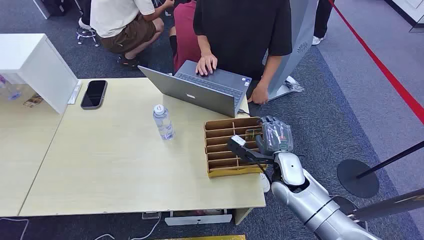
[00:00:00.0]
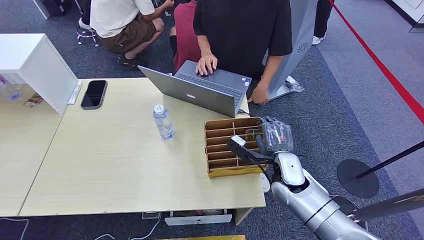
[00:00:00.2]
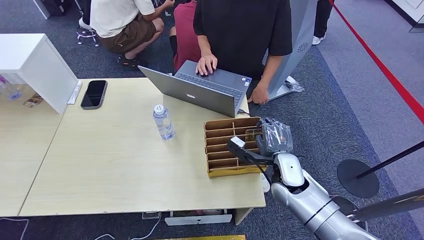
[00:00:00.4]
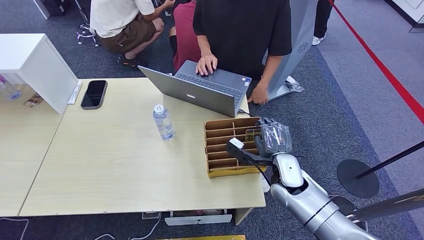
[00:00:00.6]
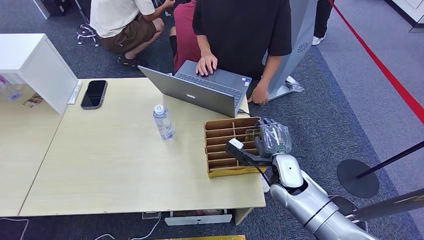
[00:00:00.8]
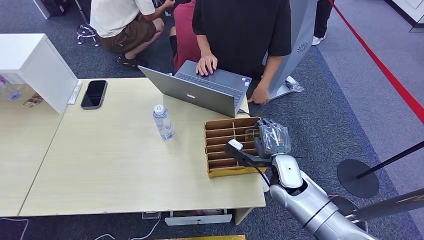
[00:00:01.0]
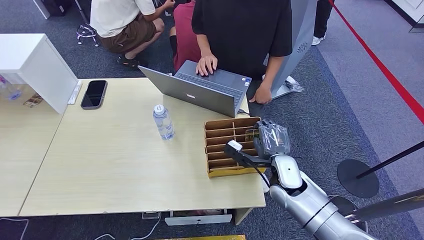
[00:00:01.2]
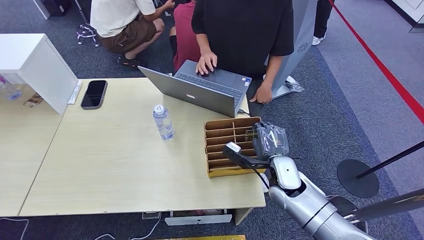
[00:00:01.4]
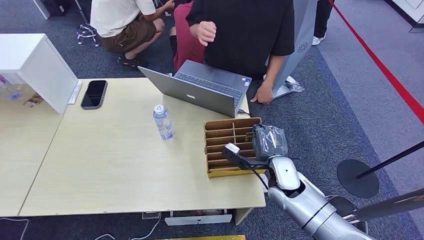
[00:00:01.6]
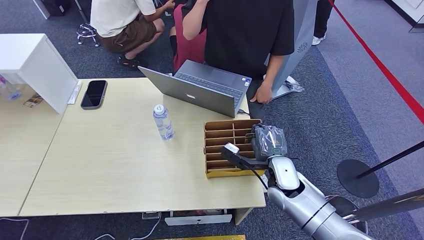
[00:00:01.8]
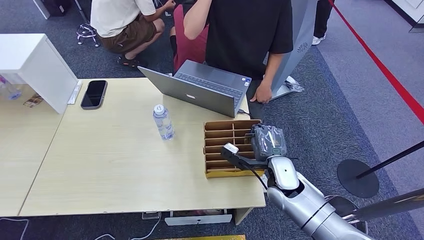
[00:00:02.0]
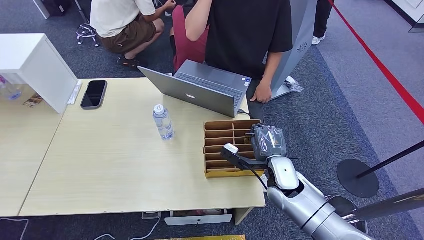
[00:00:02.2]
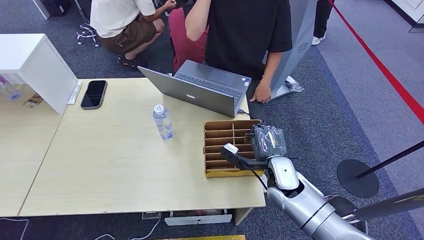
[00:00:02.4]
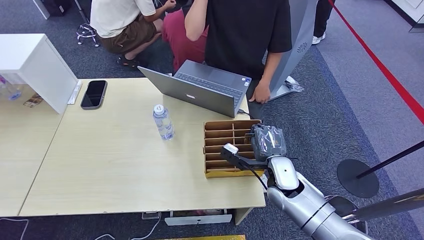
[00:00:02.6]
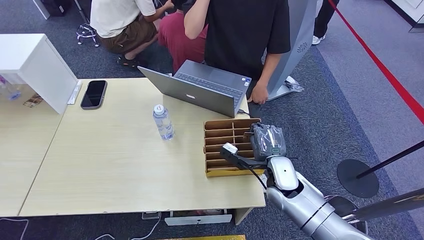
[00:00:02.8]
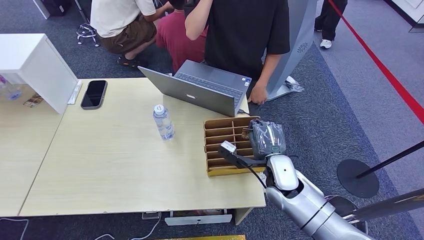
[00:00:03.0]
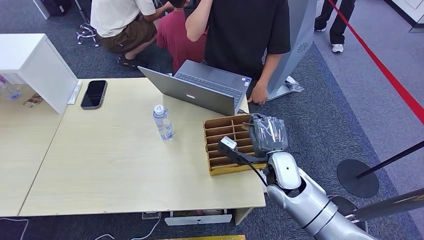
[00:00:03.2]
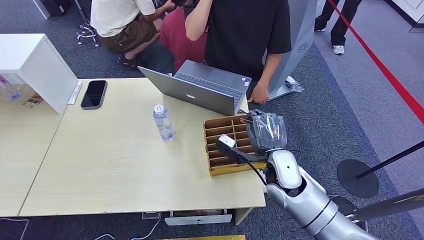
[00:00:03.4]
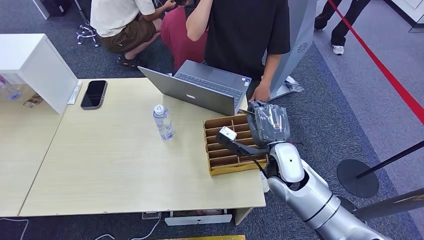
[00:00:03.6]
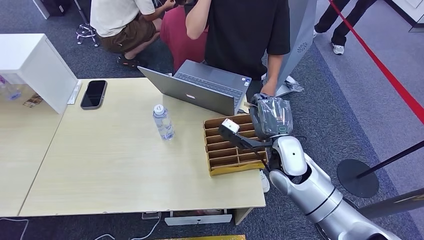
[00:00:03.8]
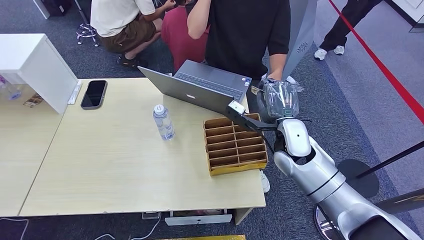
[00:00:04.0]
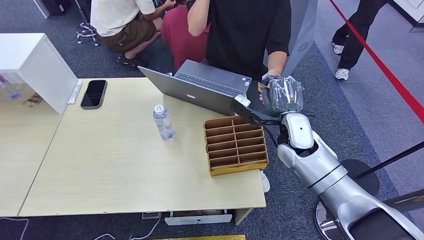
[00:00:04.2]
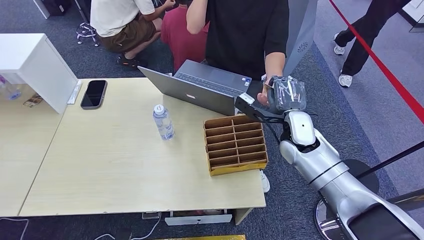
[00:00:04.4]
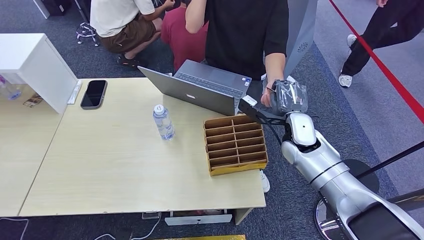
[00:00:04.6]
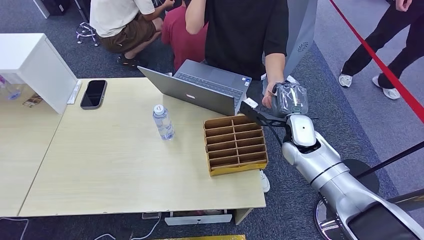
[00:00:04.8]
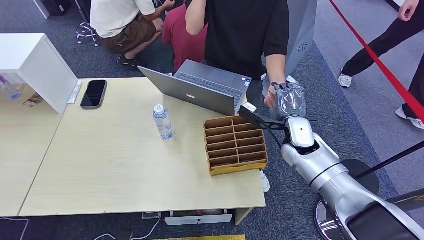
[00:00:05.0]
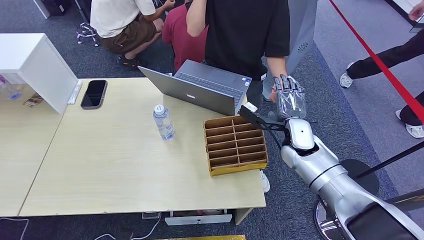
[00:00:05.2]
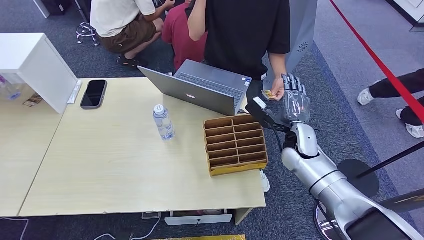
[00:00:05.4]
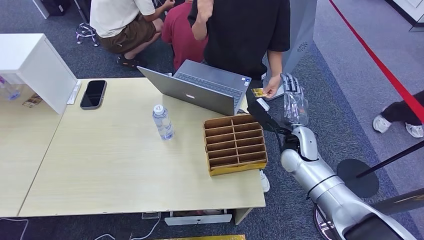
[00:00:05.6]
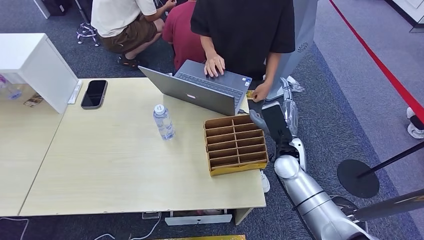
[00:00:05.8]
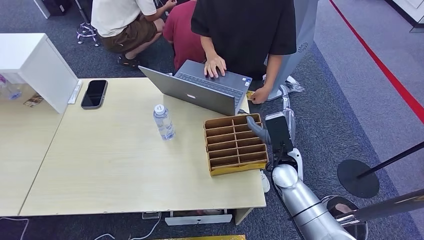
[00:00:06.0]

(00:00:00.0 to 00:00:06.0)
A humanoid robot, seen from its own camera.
Task of the whole recording: Pick up the card and hand it over to the target person.
Step, 00:00:00.0 - 00:00:04.0: Pick up the key card from the card box.
Step, 00:00:04.2 - 00:00:06.0: Hand the key card to the target.
00:00:01.6 - 00:00:03.0: The right hand is displaced upward by about 5 cm.
00:00:03.0 - 00:00:04.4: The right hand moves forward and to the right, roughly 10 cm.
00:00:04.4 - 00:00:06.0: The right hand heads backward and downward, covering roughly 10 cm.

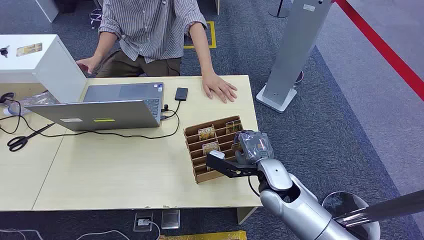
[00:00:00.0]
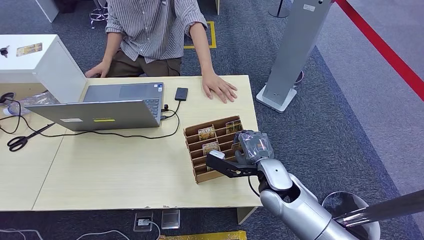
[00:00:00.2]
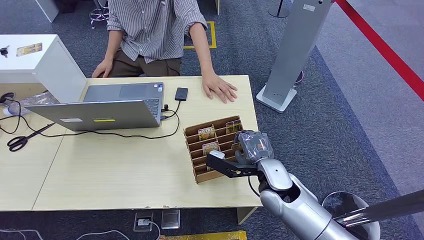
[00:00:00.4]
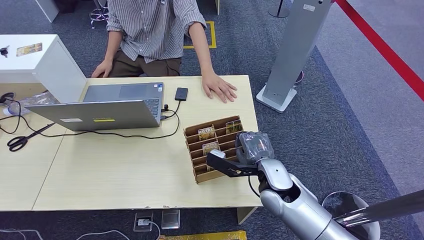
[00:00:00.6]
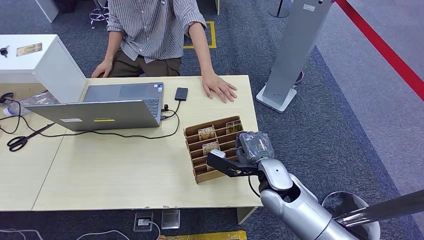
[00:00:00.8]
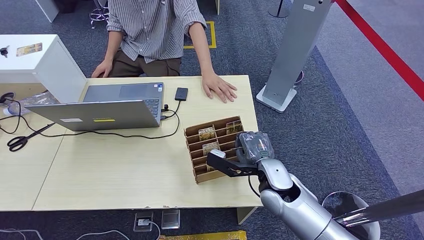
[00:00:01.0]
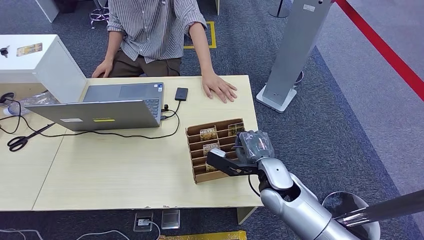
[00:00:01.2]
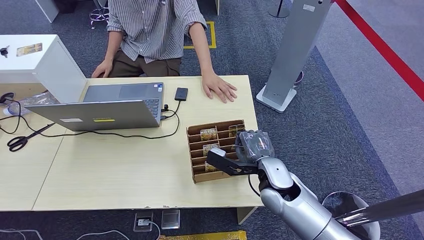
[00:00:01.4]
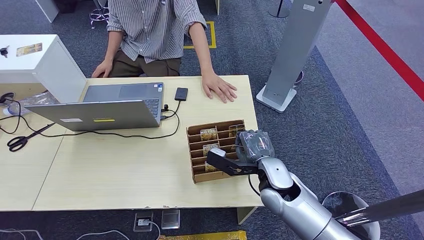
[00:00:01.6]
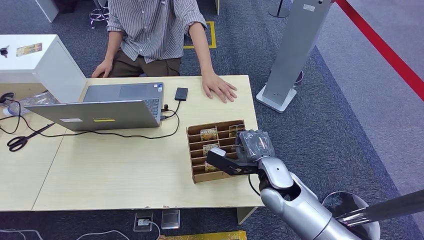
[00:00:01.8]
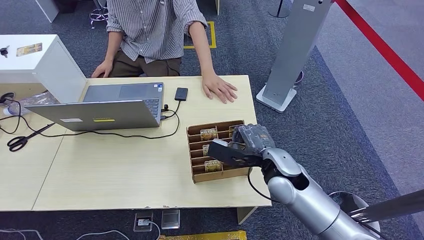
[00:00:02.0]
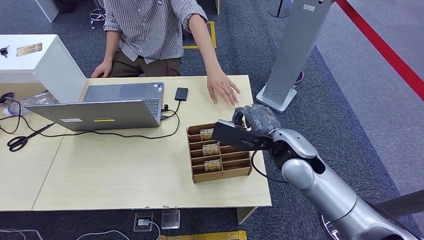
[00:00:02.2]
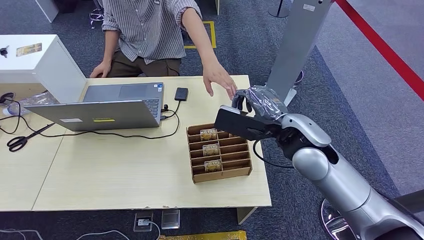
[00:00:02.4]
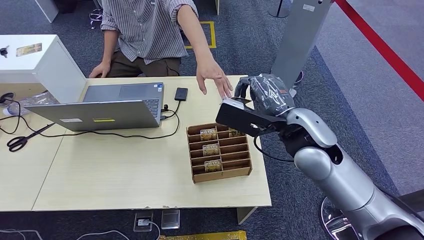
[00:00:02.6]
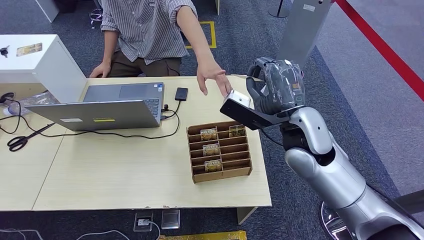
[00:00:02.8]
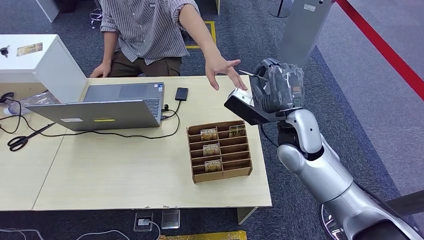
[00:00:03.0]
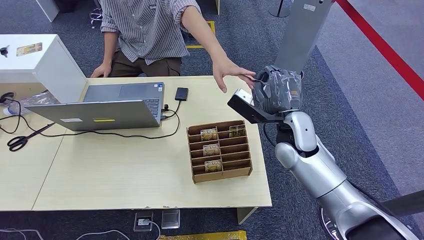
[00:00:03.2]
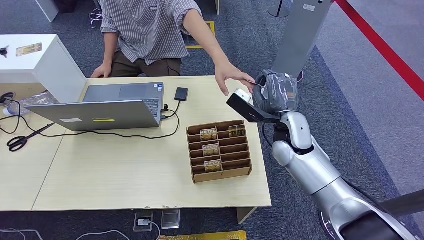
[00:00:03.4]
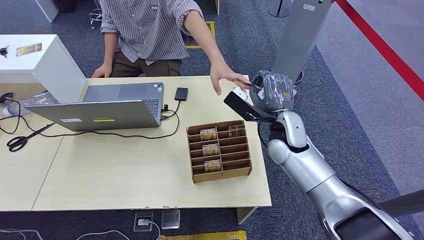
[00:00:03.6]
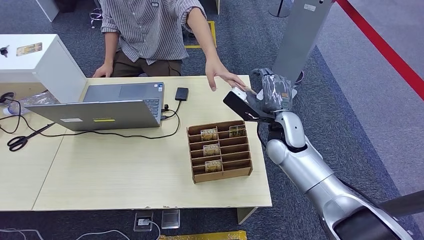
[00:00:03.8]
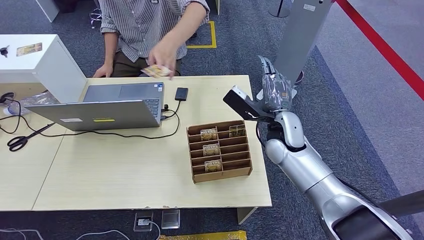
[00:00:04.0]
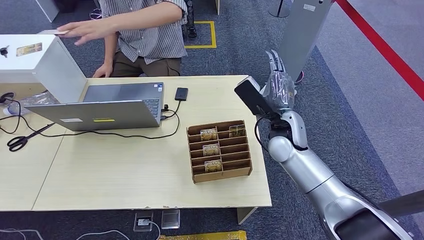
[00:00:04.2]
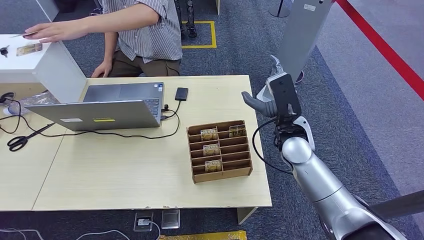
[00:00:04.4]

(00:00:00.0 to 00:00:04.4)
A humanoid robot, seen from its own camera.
Task of the whole recording: Pick up the card and hand it over to the target person.
Step, 00:00:00.0 - 00:00:02.4: Pick up the key card from the card box.
Step, 00:00:03.0 - 00:00:04.4: Hand the key card to the target.
00:00:01.4 - 00:00:03.0: The right hand goes some 10 cm forward and upward.
00:00:03.0 - 00:00:04.4: The right hand moves backward, about 5 cm.

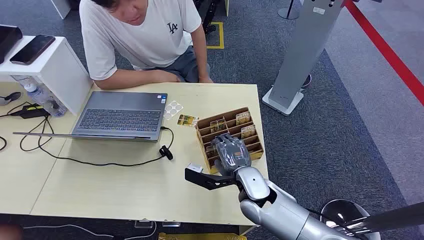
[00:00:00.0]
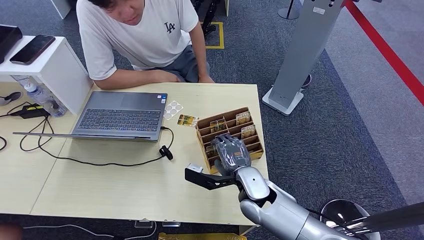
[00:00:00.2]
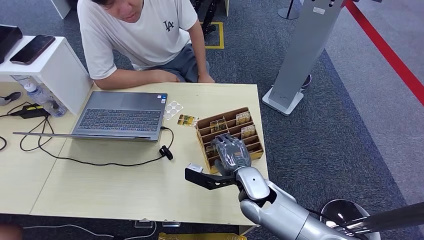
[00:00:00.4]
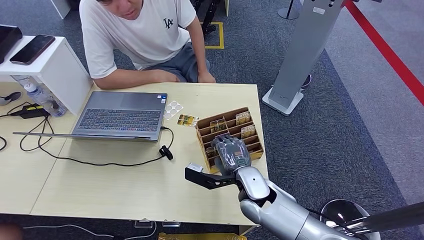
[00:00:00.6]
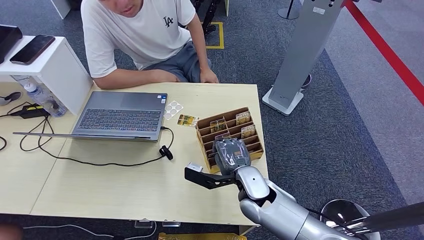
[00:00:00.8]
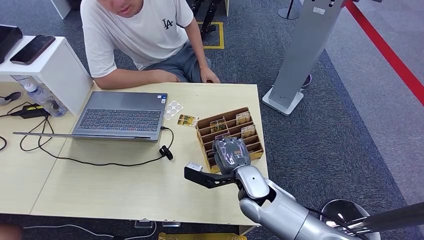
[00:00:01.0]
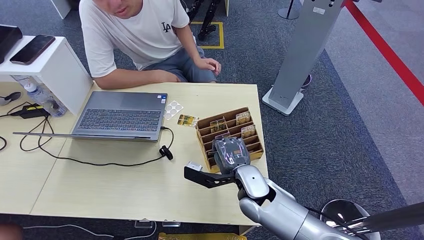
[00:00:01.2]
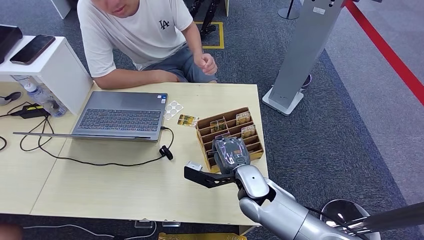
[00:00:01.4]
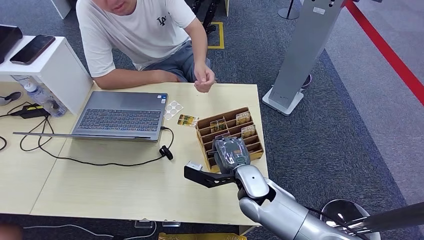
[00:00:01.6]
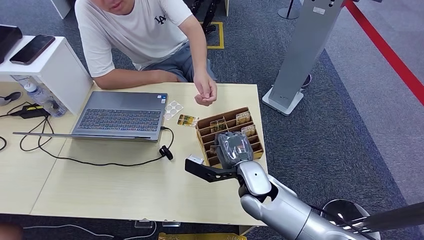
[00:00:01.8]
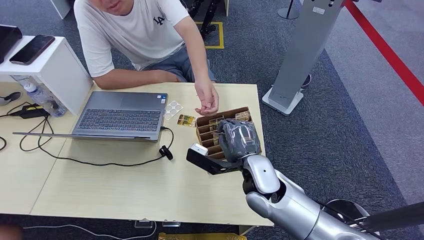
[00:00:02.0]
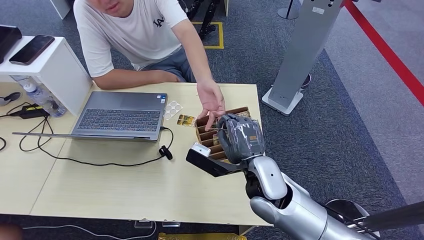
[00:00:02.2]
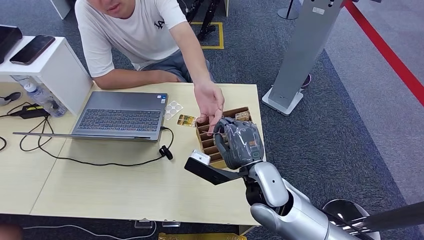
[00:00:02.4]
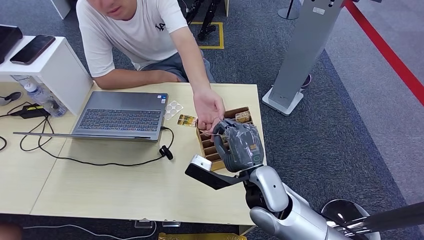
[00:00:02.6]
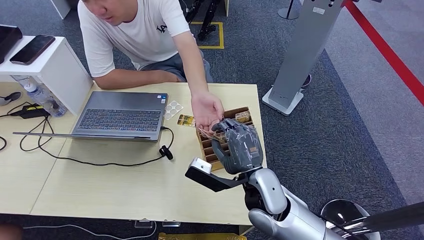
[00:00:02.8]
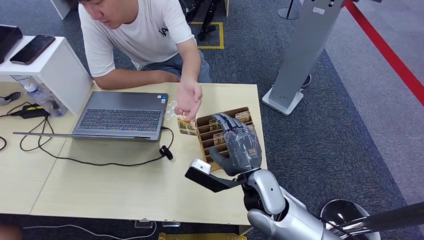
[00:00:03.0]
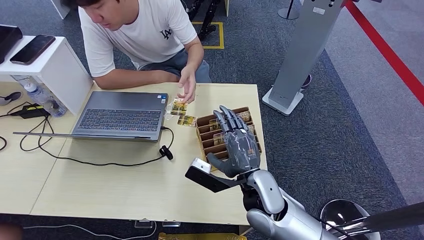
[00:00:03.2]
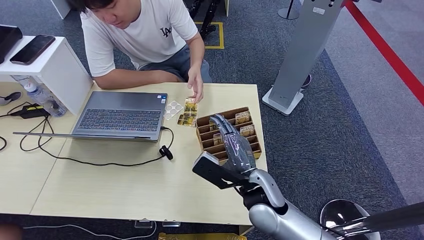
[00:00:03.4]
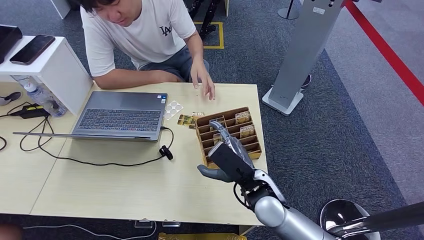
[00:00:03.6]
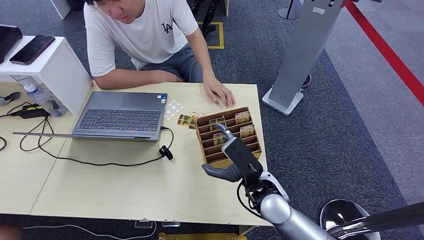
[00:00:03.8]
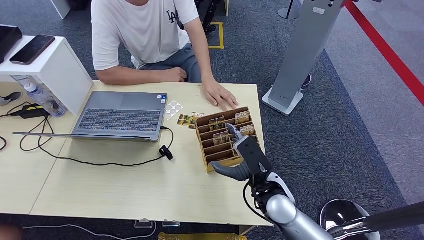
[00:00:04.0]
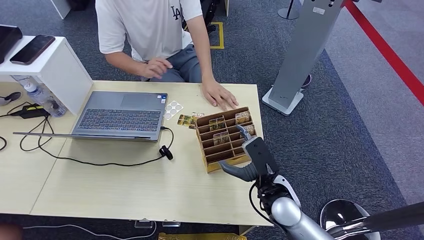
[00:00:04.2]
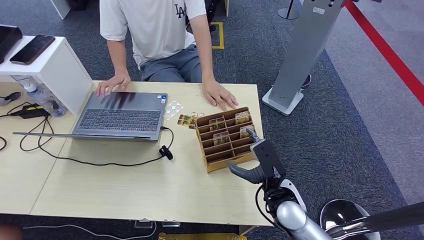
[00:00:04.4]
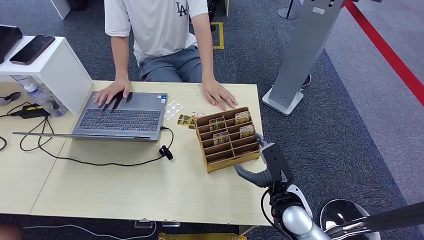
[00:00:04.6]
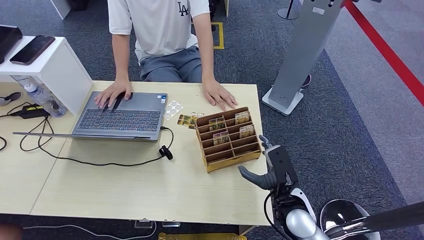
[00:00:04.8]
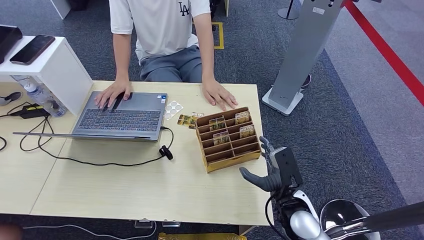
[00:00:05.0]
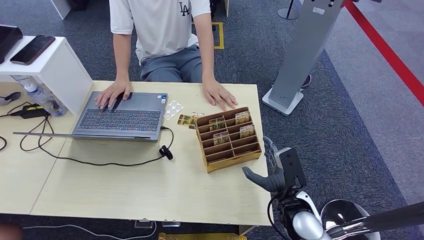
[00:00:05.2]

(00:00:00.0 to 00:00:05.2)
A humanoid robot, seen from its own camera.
Task of the whole recording: Pick up the card and hand it over to the target person.
Step, 00:00:00.0 - 00:00:01.8: Pick up the key card from the card box.
Step, 00:00:02.0 - 00:00:05.2: Hand the key card to the target.
00:00:01.8 - 00:00:03.4: The right hand goes some 5 cm downward.
00:00:03.4 - 00:00:05.2: The right hand goes some 10 cm to the right.
